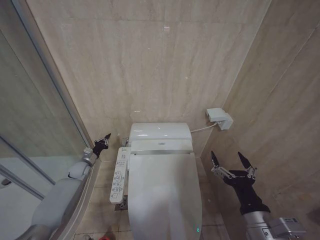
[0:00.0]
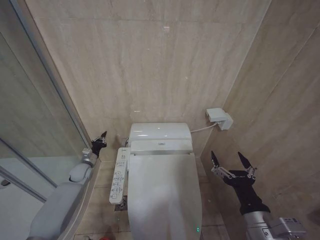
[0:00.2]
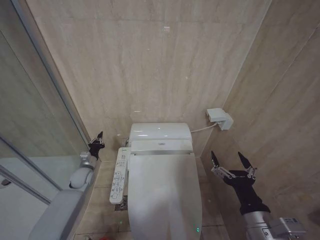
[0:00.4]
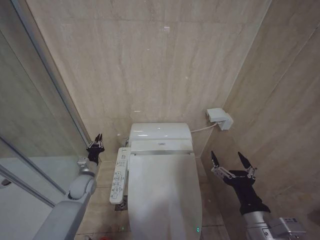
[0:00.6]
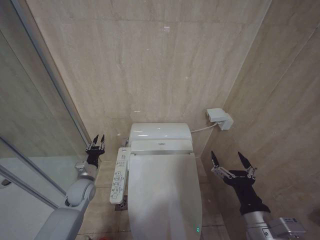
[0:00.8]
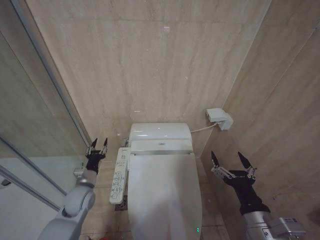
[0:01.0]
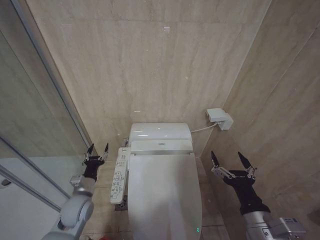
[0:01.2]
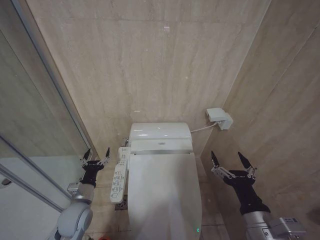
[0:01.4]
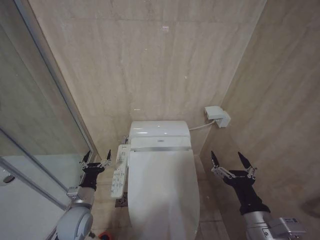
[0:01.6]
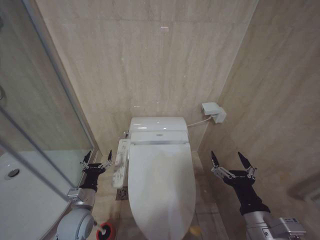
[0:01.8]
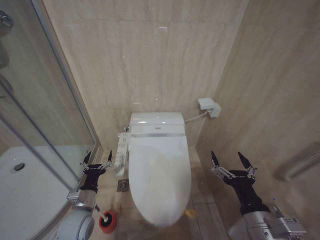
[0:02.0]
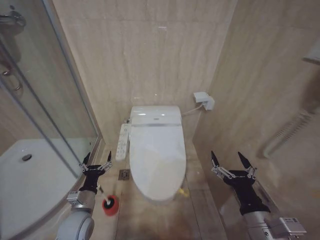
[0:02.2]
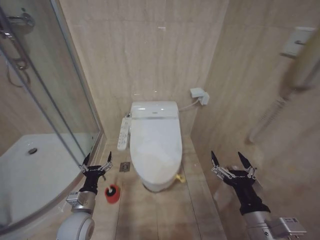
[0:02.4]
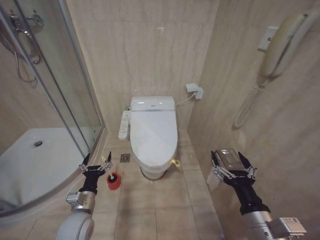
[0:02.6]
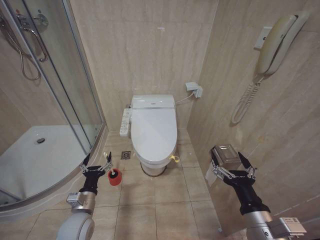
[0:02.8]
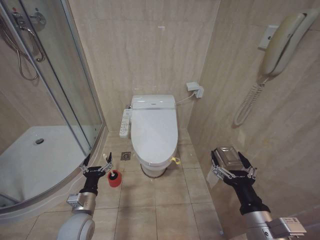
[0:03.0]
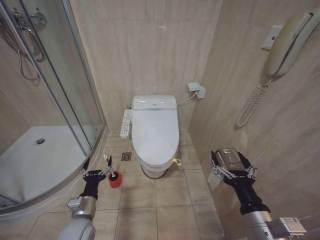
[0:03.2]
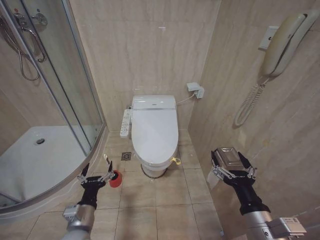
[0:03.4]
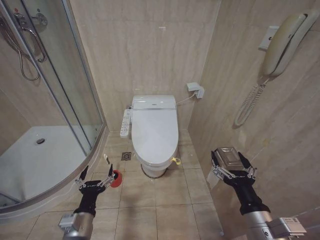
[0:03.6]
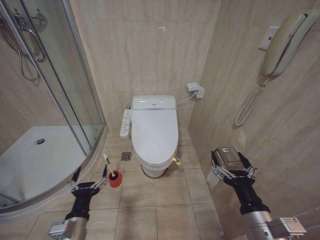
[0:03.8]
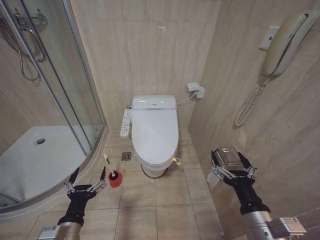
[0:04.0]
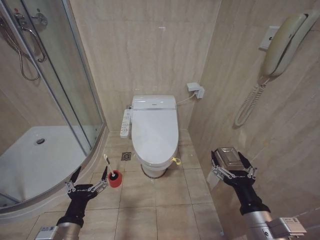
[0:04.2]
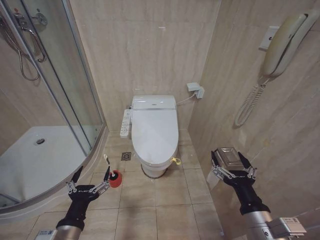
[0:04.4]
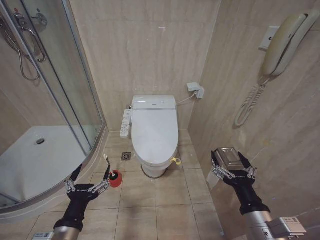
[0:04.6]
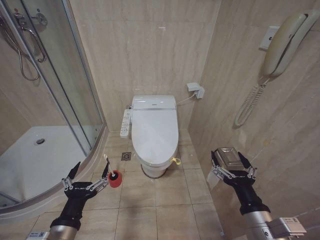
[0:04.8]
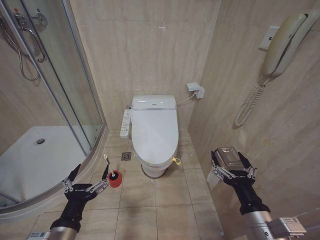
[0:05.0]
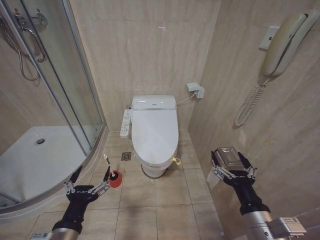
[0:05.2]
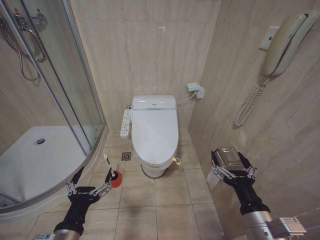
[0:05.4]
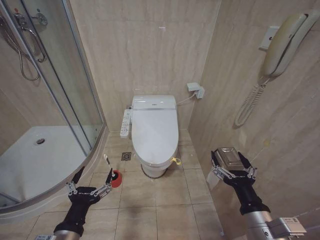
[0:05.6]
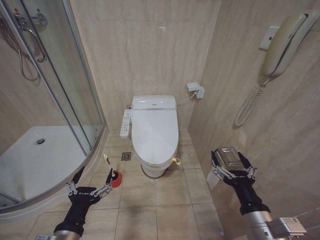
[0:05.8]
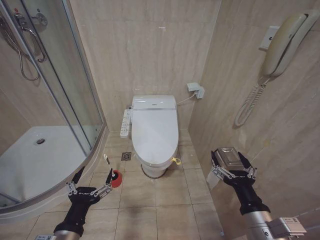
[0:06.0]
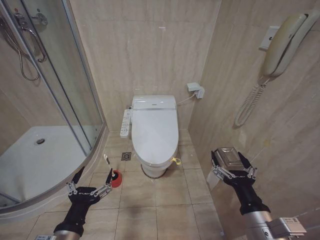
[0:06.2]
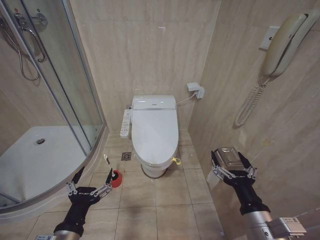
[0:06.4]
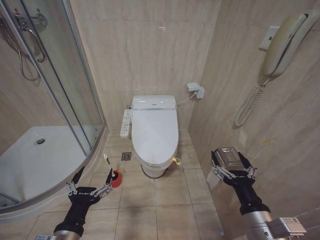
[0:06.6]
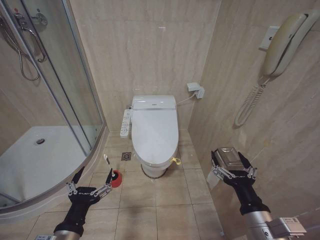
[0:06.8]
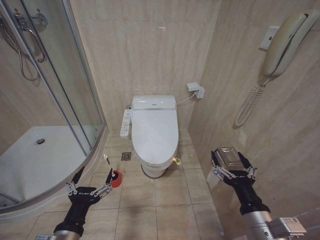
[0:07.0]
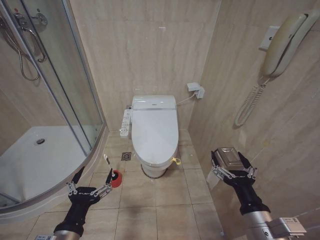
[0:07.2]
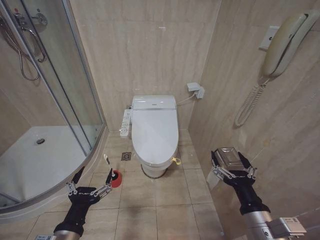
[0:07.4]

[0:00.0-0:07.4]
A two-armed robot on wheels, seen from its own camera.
Task of the whole recording: Open the toilet lid, clean the toilet bowl with a toilet brush, close the toilet lid, and flush.
0:00.0 to 0:01.4: The left gripper moves backward and to the right, about 25 cm, and opens.
0:01.4 to 0:03.0: The left gripper opens its fingers.
0:03.0 to 0:04.4: The left gripper goes roughly 15 cm backward and upward.
0:04.4 to 0:06.0: The grippers move only a little.
0:06.0 to 0:07.4: Both grippers stay put.
